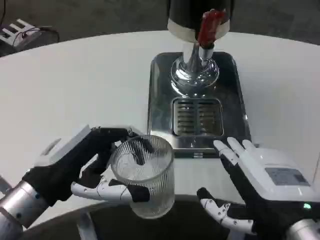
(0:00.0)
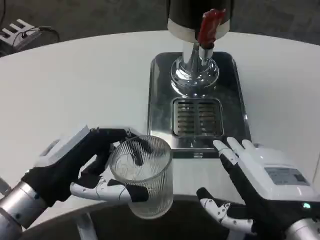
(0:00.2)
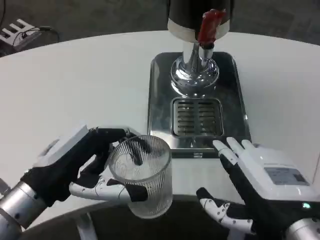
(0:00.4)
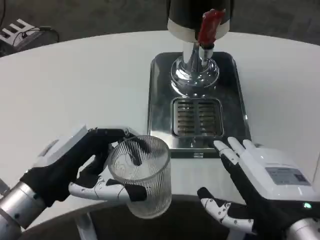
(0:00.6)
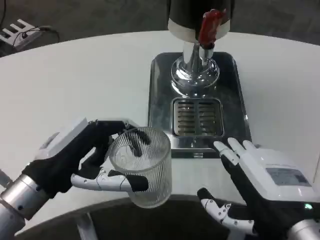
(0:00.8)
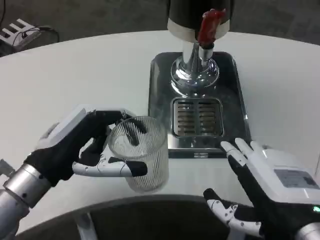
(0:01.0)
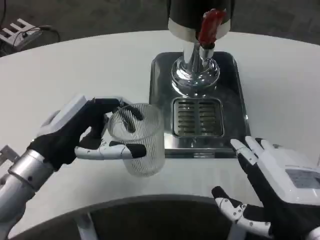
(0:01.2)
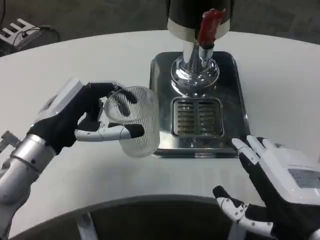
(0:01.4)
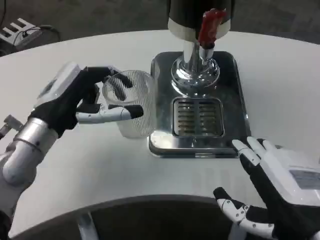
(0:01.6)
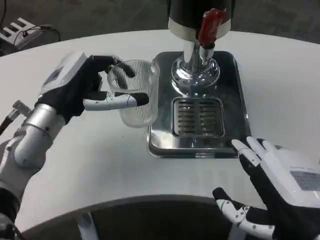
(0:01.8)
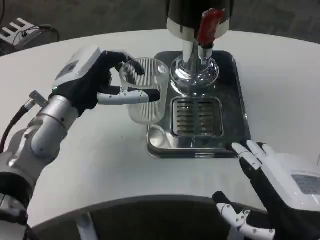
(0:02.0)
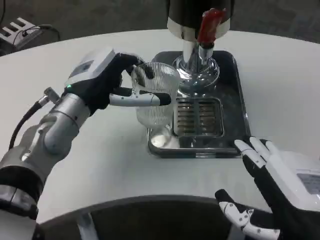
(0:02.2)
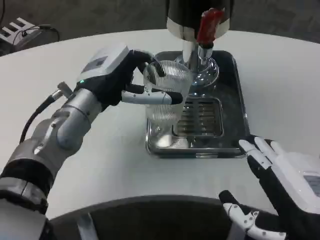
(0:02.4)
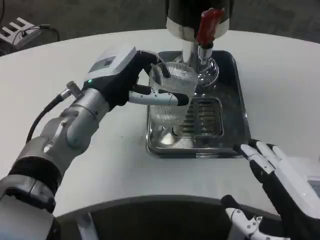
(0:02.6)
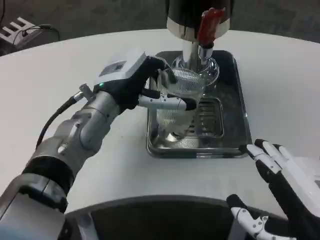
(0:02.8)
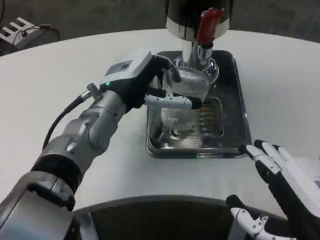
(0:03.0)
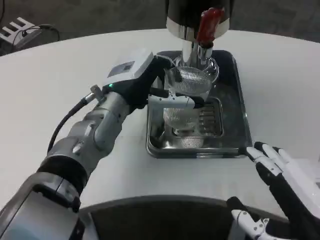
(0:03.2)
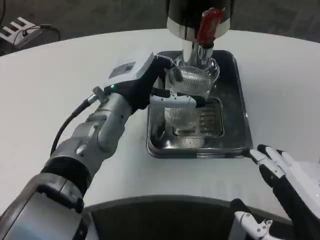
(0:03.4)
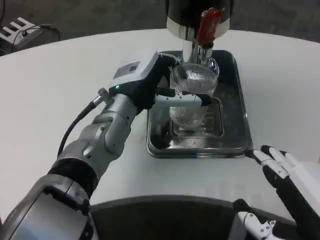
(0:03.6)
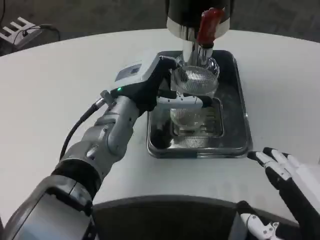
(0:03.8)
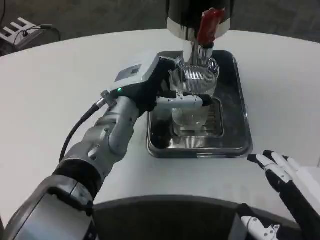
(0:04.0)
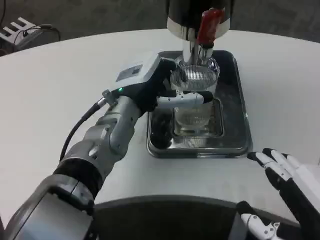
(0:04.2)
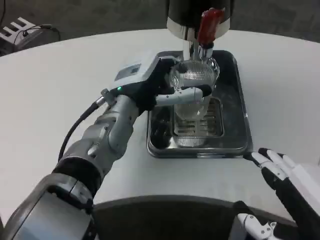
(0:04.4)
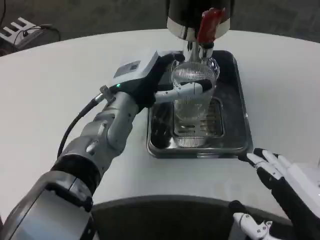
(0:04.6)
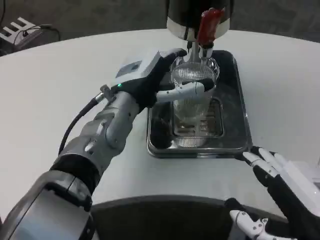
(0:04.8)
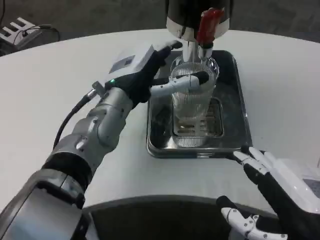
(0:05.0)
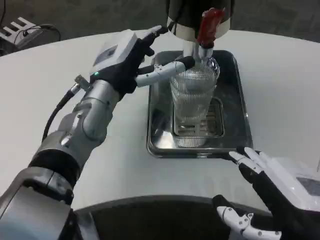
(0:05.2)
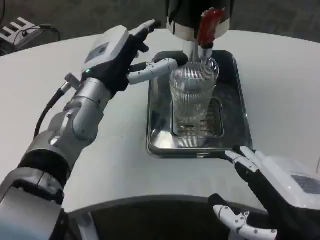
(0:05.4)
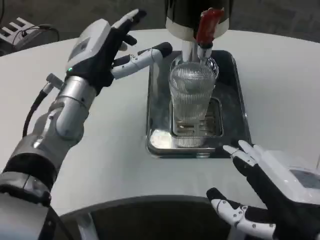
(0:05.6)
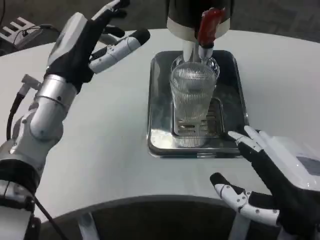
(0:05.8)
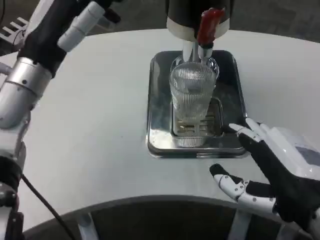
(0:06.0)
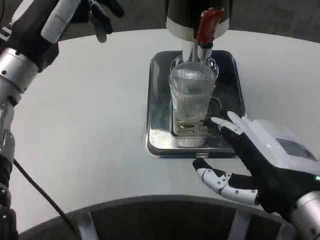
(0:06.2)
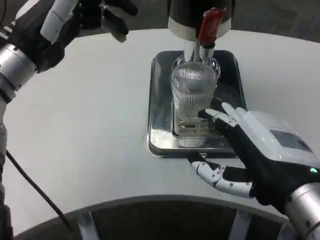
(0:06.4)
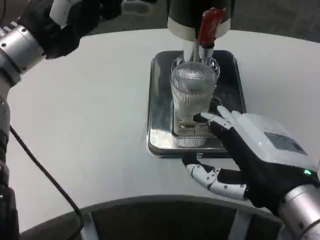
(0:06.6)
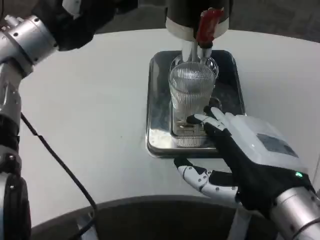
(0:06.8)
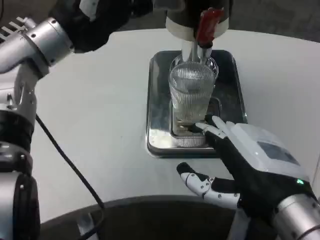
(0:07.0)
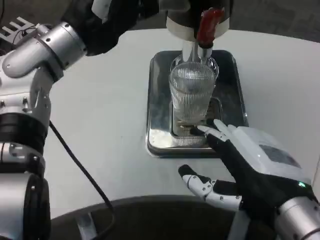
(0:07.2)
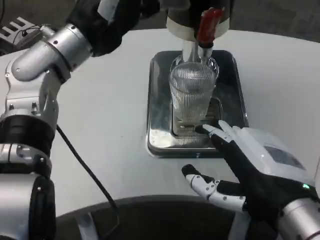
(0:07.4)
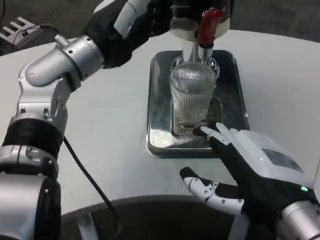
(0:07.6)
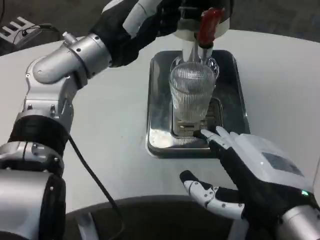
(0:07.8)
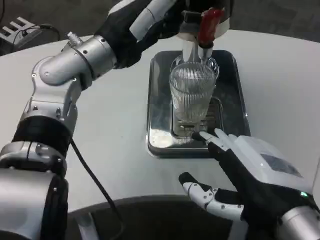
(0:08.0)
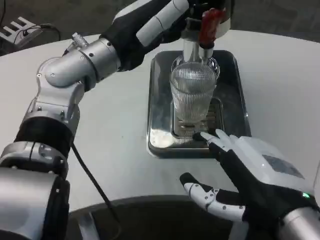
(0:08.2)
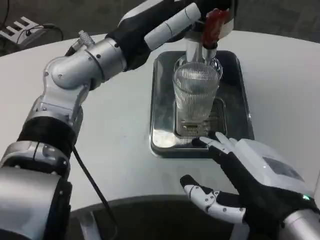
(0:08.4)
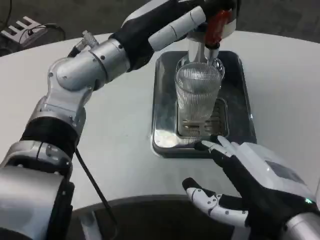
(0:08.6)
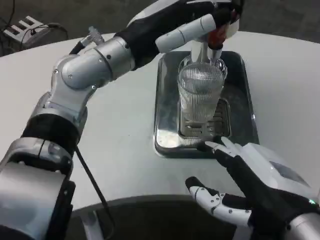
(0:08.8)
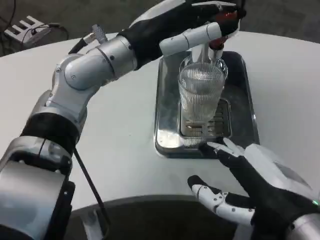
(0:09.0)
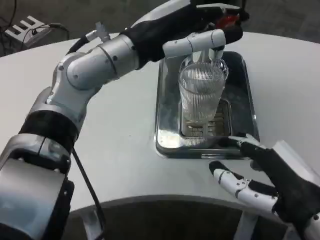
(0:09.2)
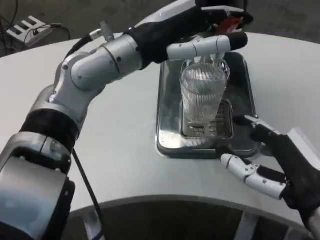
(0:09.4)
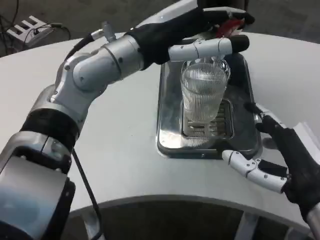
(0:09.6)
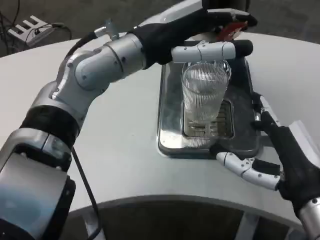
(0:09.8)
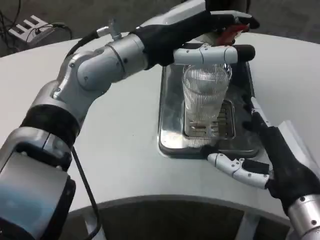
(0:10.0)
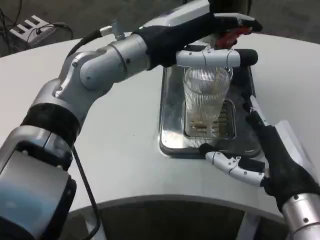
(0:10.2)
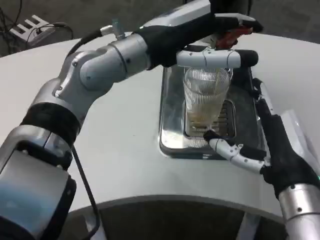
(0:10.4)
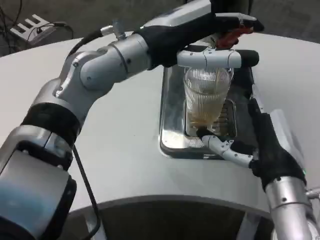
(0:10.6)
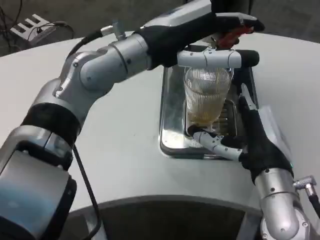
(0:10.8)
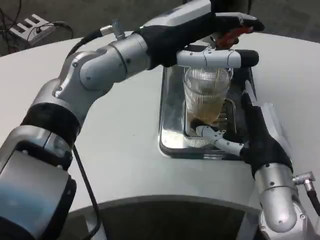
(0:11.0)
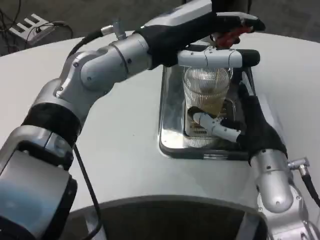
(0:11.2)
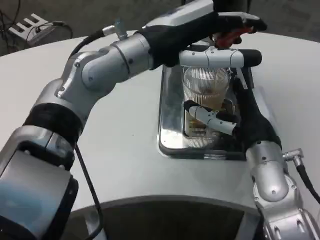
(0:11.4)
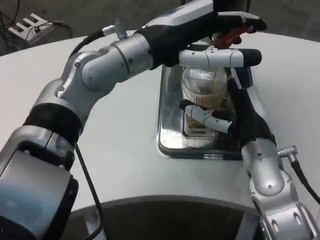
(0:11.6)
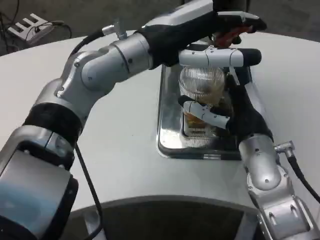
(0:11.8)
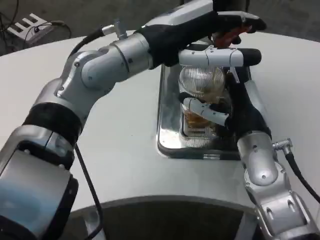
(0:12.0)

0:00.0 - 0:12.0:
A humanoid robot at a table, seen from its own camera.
Task of the whole recording: Grasp the cup under the faucet to collect the drink, then remove the cup.
0:00.0 - 0:01.6: The left hand is displaced forward by roughly 10 cm.
0:01.6 - 0:03.0: The left hand shifts about 10 cm to the right.
0:04.4 - 0:06.0: The left hand travels to the left and upward by about 15 cm.
0:06.0 - 0:07.6: The left hand travels to the right by about 5 cm.
0:09.0 - 0:10.4: The right hand moves forward, some 5 cm.
0:10.4 - 0:12.0: The right hand is displaced forward by about 10 cm.

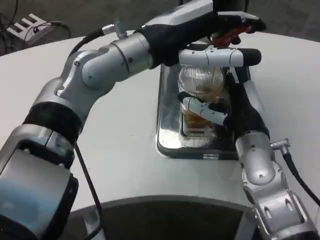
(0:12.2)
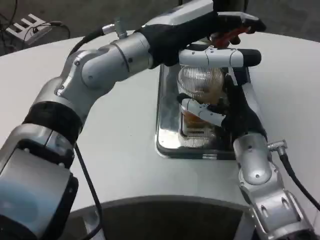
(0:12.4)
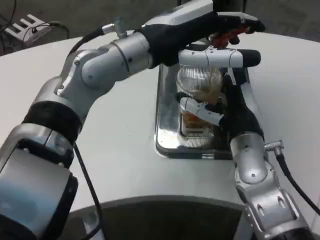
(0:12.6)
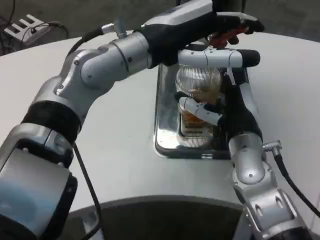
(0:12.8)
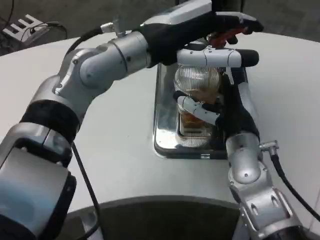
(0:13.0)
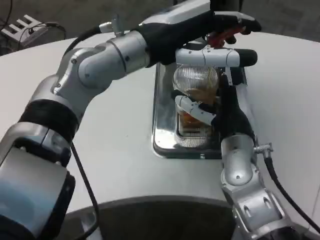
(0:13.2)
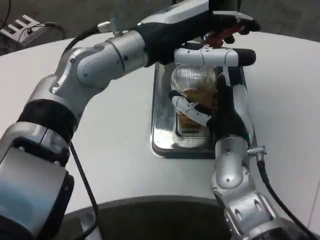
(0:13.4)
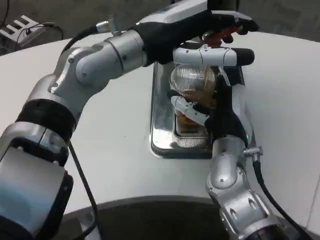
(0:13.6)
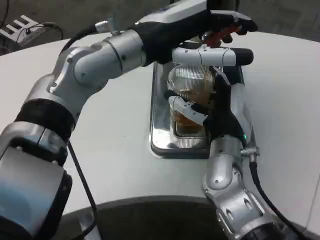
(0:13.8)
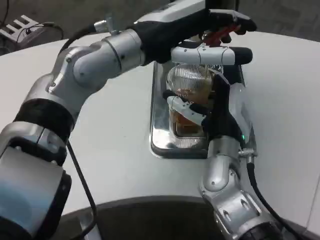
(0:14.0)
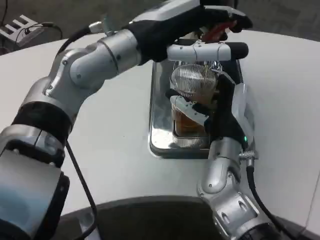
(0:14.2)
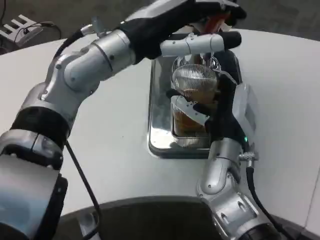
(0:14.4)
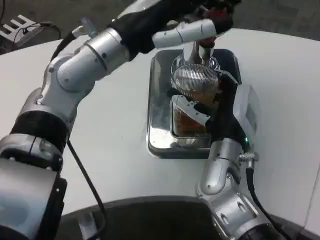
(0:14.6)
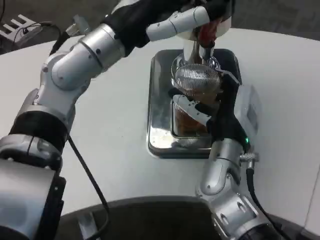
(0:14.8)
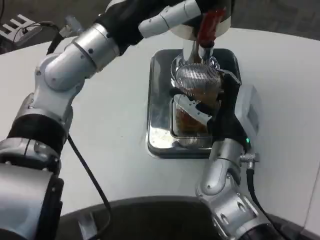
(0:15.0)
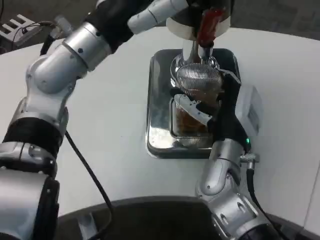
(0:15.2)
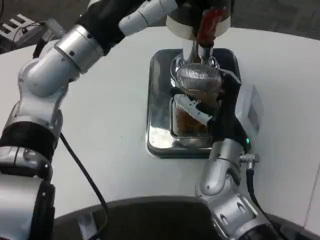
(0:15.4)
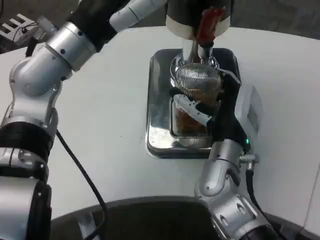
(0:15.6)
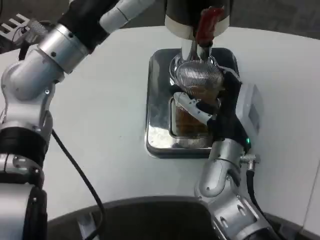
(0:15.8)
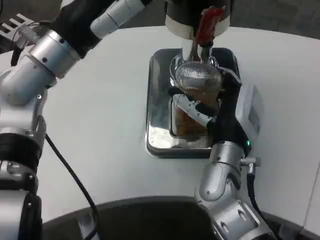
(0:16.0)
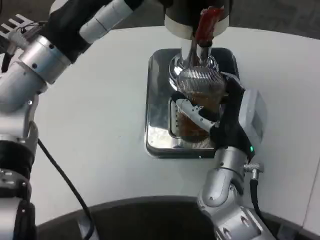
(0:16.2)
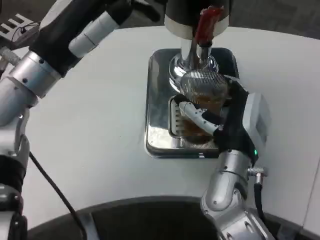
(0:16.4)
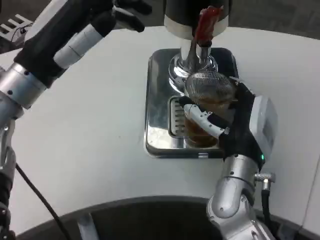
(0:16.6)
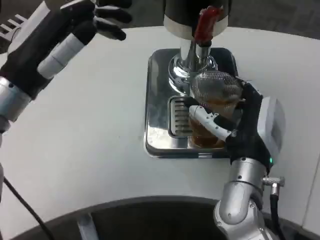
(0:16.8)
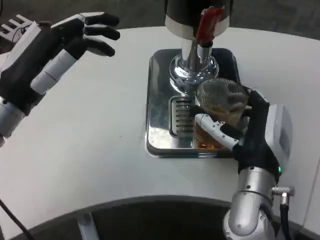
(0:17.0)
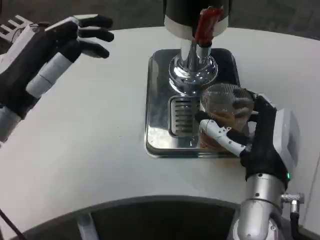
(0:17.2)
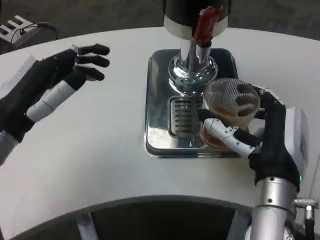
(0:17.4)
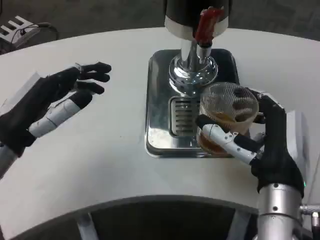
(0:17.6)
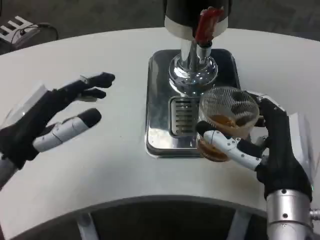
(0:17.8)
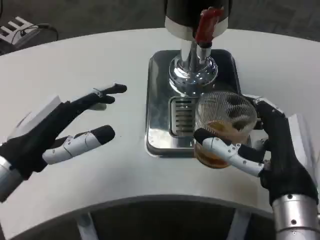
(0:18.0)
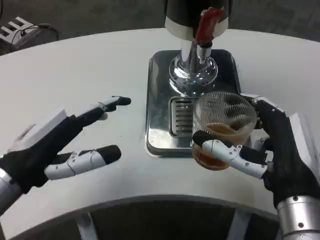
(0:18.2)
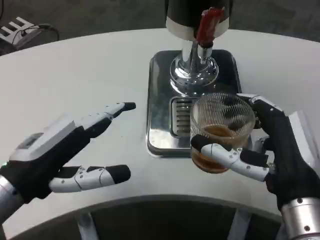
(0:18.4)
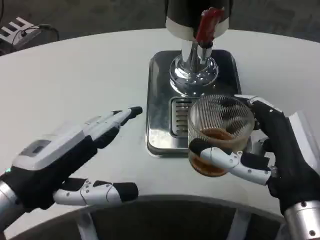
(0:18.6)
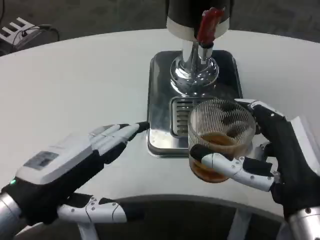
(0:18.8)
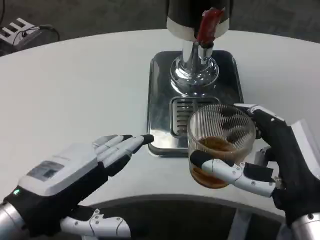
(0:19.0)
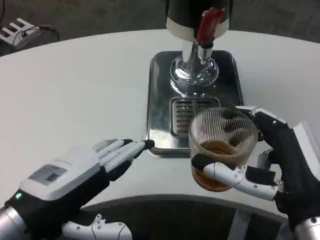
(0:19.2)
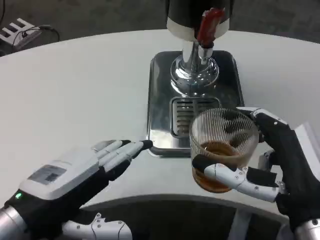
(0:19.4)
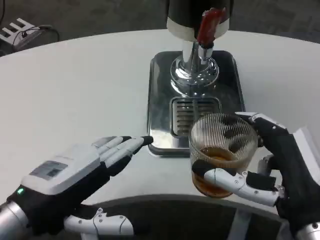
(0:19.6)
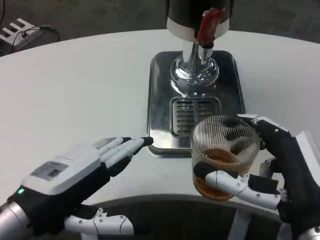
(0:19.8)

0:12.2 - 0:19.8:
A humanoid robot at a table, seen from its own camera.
Task of the whole recording: Grasp the cup under the faucet to collect the drink, then remove the cup.
0:12.2 - 0:13.8: The right hand is displaced to the left by some 5 cm.
0:15.2 - 0:16.8: The left hand shifts about 10 cm to the left and downward.
0:16.8 - 0:18.2: The left hand goes about 10 cm backward and downward, while the right hand shifts about 10 cm backward and to the right.
0:18.2 - 0:19.8: The left hand ends up roughly 5 cm from where it was.

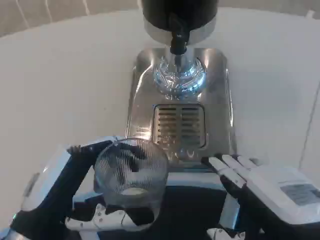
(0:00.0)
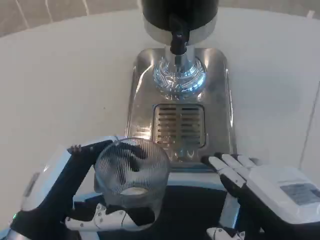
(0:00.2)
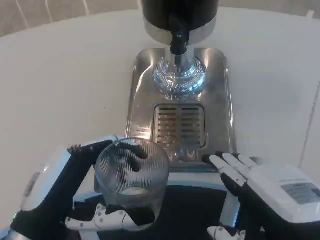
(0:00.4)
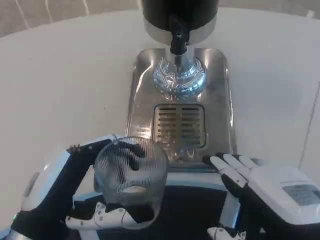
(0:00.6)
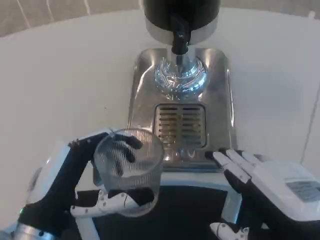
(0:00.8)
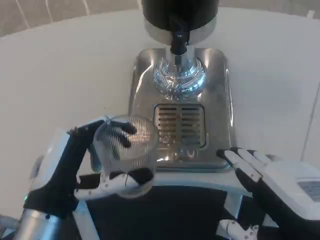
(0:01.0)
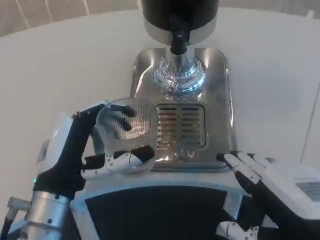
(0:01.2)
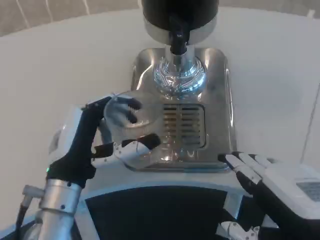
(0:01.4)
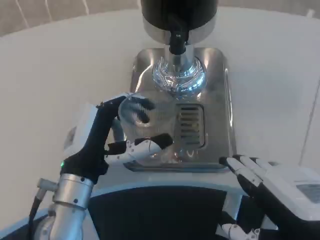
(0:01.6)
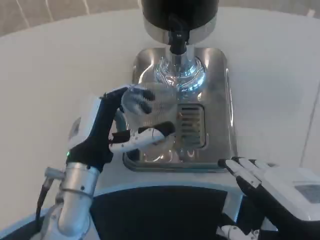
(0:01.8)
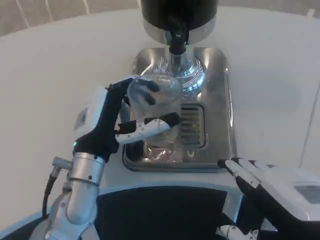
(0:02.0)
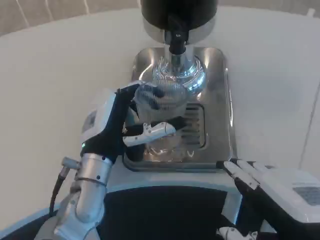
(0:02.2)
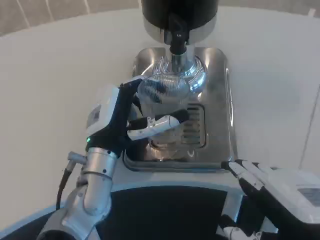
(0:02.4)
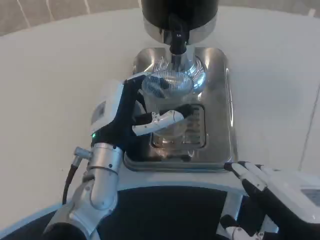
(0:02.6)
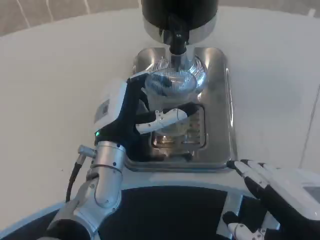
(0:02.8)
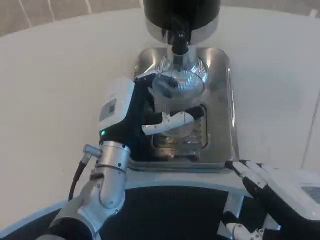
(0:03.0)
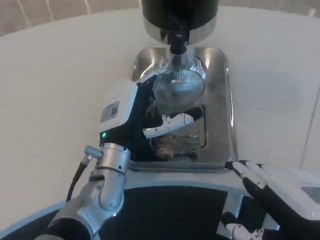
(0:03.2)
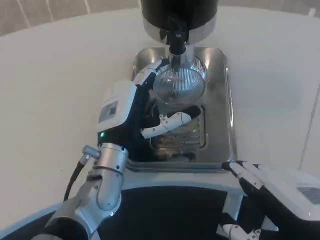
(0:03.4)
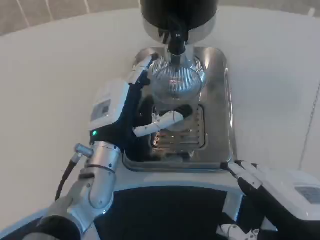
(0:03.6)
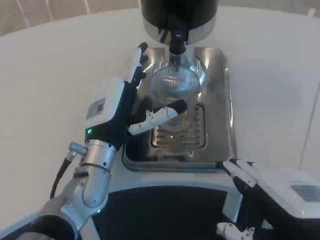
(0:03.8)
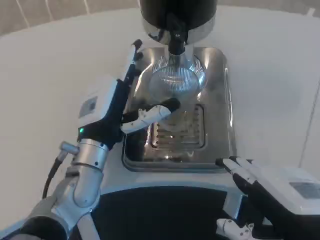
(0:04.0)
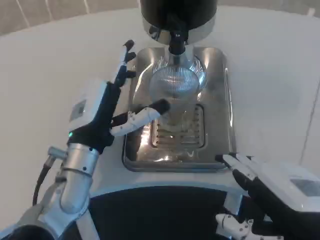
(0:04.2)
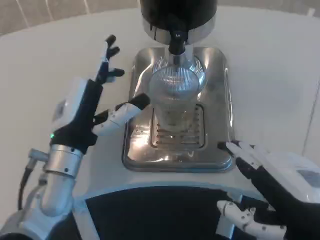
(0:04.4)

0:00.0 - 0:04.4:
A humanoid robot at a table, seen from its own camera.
Task of the whole recording: Grasp the cup under the faucet to collect the drink, then remove the cup.
0:00.0 - 0:01.4: The left hand moves forward, approximately 10 cm.
0:01.4 - 0:03.0: The left hand shifts roughly 10 cm forward and to the right.
0:03.0 - 0:04.4: The left hand goes some 10 cm to the left.
